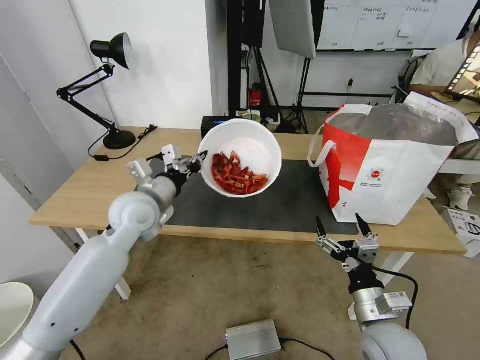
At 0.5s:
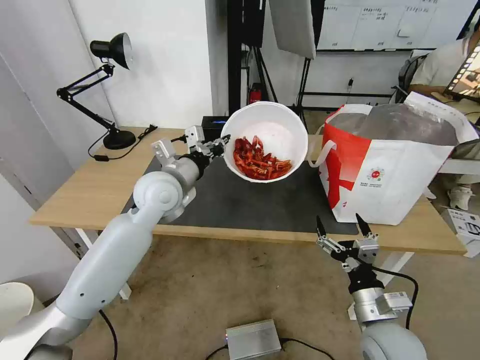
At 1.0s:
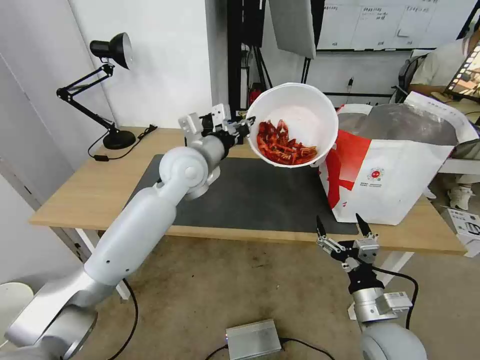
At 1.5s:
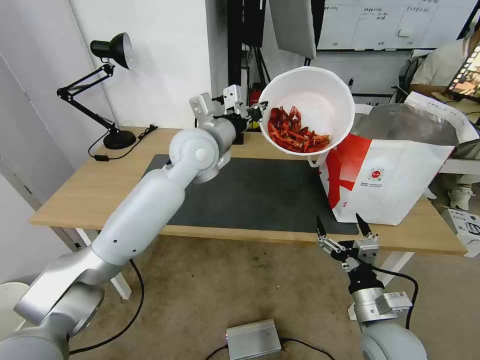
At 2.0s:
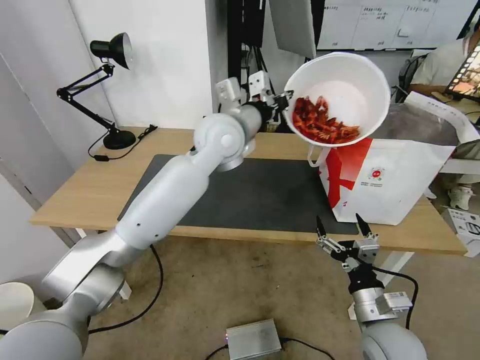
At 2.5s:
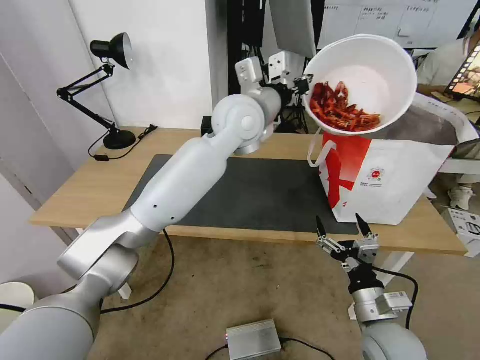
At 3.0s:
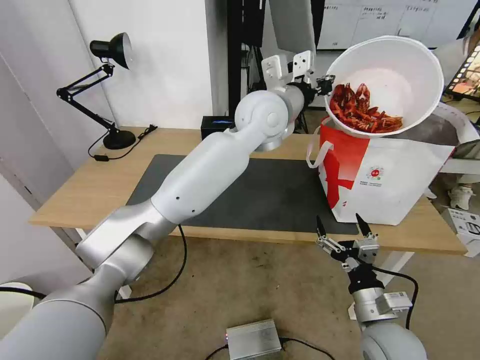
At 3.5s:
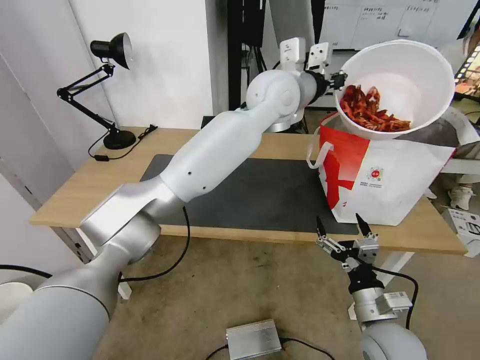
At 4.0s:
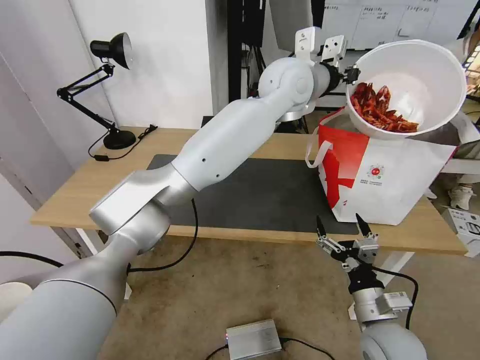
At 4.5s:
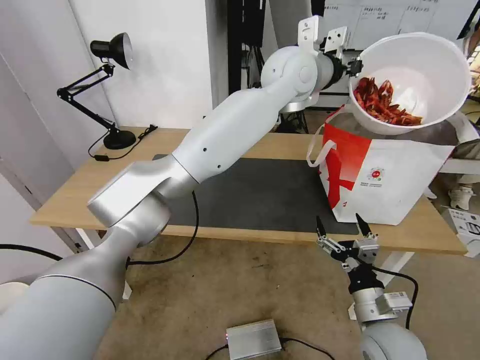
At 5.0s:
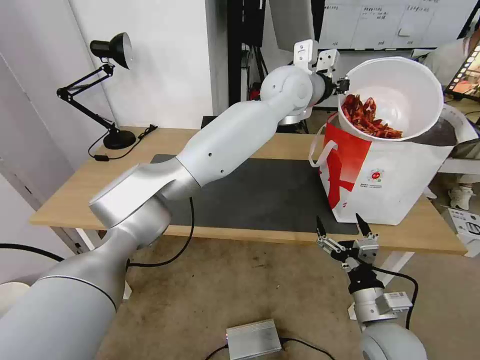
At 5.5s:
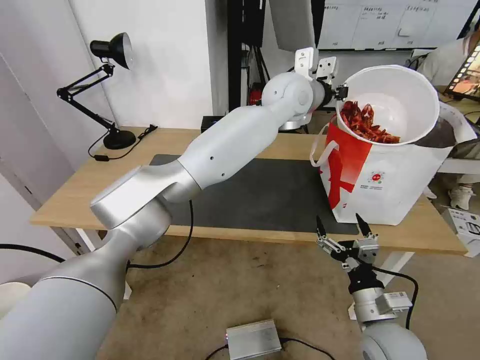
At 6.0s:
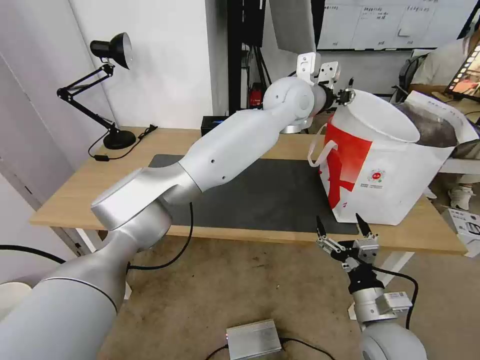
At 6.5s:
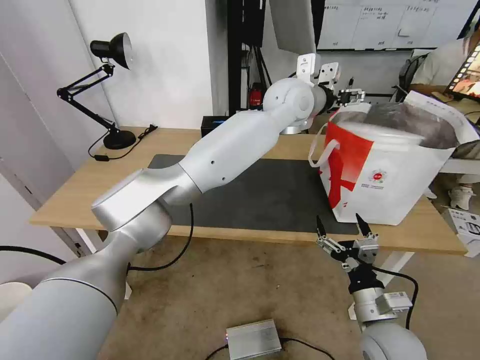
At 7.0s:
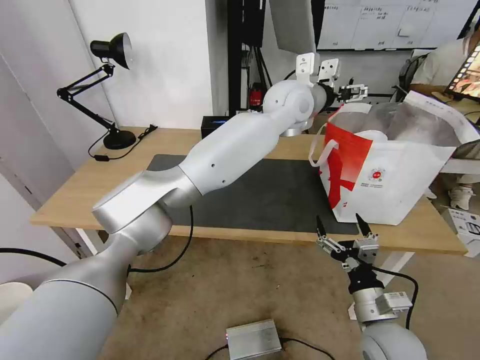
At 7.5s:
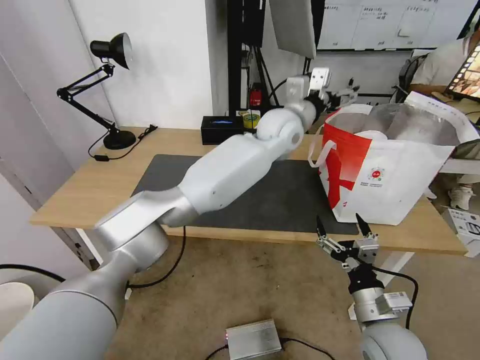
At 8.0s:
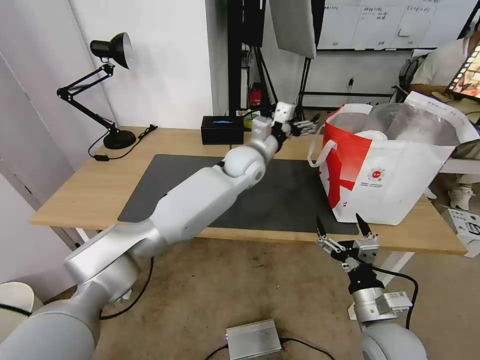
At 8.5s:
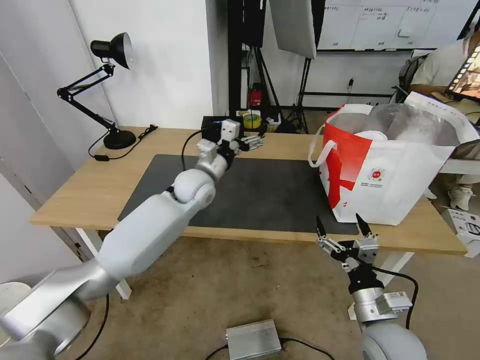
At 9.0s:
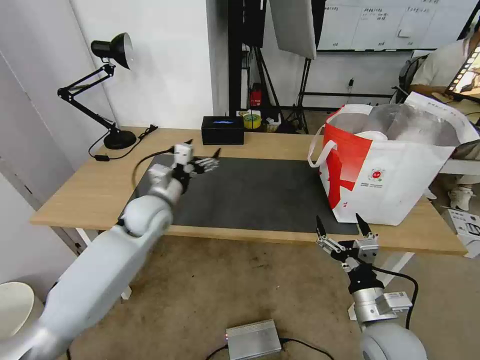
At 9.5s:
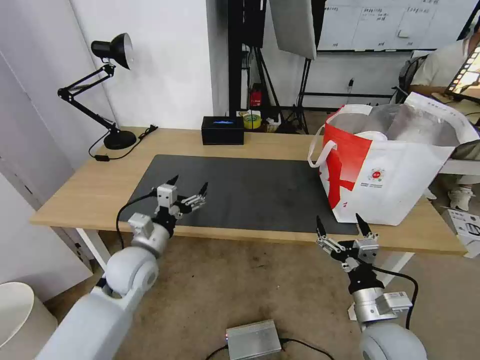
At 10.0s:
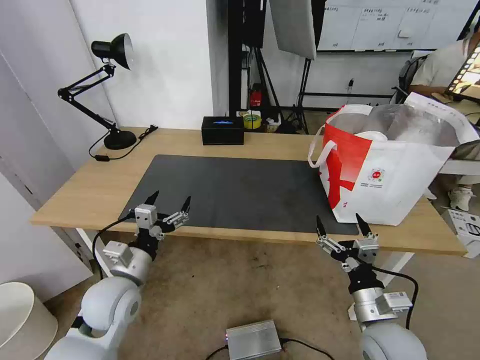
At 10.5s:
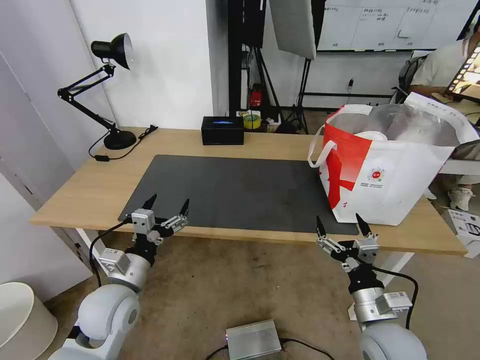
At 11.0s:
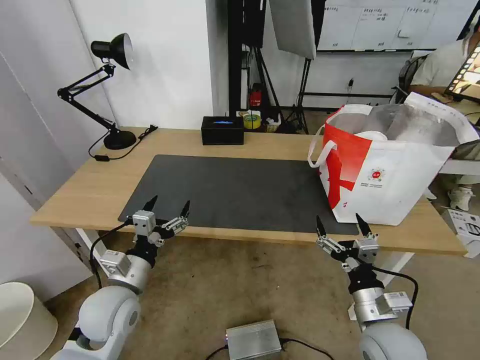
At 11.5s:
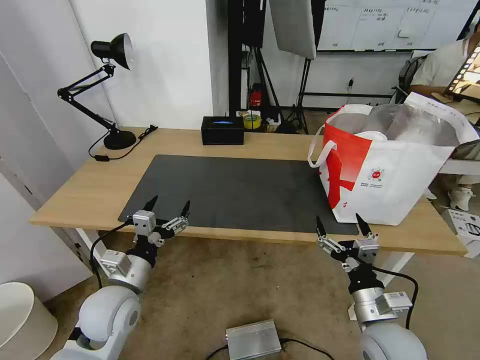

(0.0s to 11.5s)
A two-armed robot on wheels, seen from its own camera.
Task of the whole recording: Pick up the trash from the table and place it into the takeout bag.
0.0s - 2.0s: The left gripper moves to the right, upward and forward, approximately 25 cm.
2.0s - 4.0s: The left gripper heads to the right, upward and forward, covering about 15 cm.
4.0s - 6.0s: The left gripper opens.
6.0s - 7.5s: The left gripper heads downward, covering about 5 cm, and opens up.
7.5s - 9.5s: The left gripper shifts roughly 40 cm to the left, backward and downward.
9.5s - 11.5s: The left gripper is displaced backward by about 10 cm.

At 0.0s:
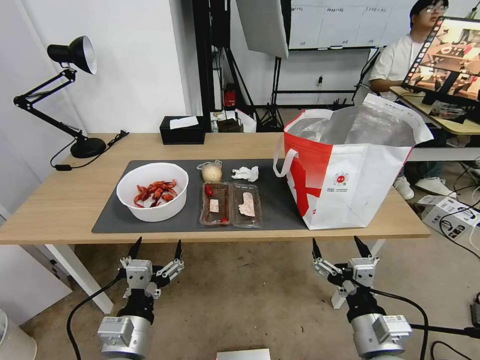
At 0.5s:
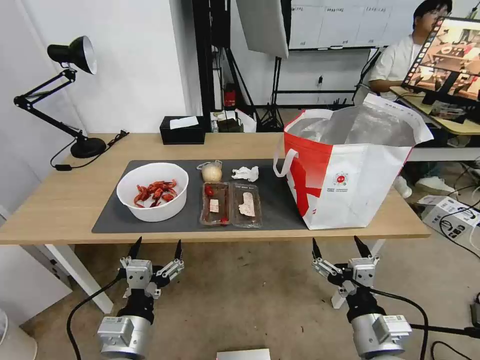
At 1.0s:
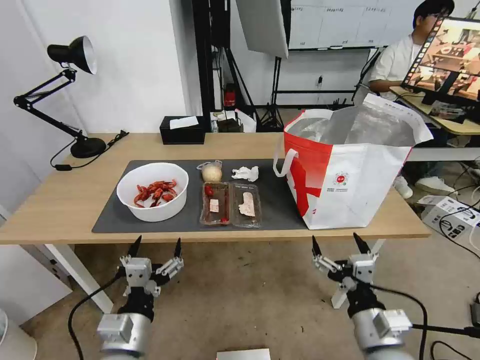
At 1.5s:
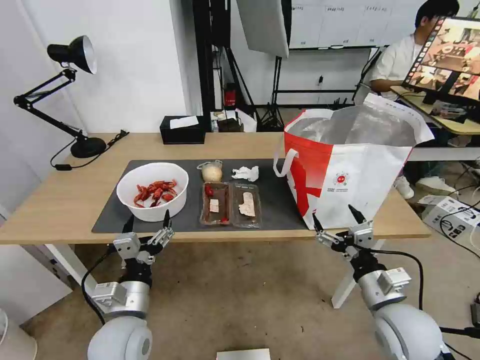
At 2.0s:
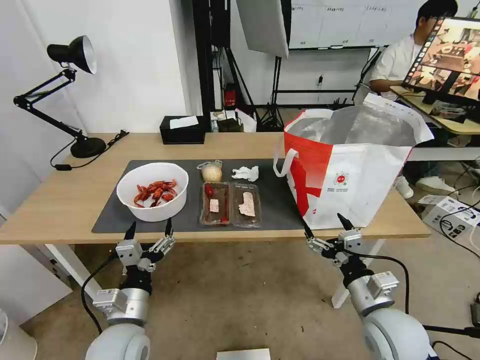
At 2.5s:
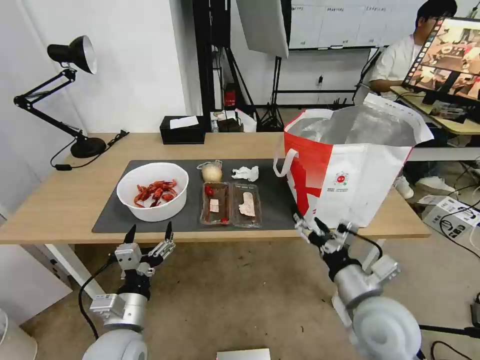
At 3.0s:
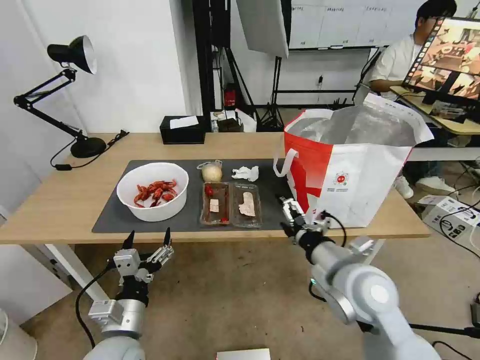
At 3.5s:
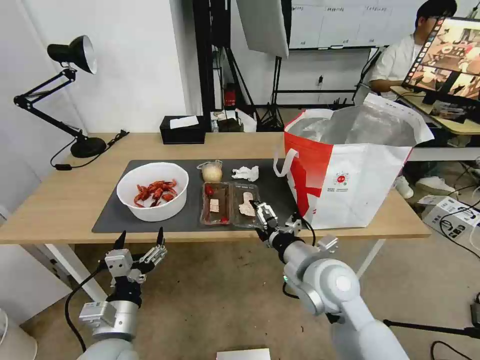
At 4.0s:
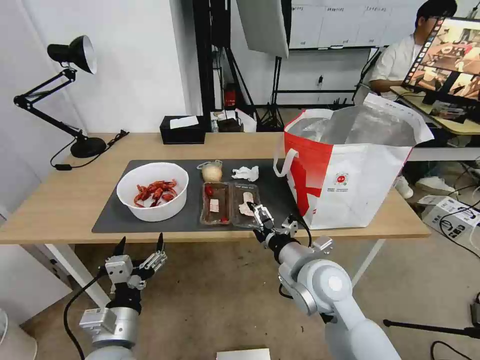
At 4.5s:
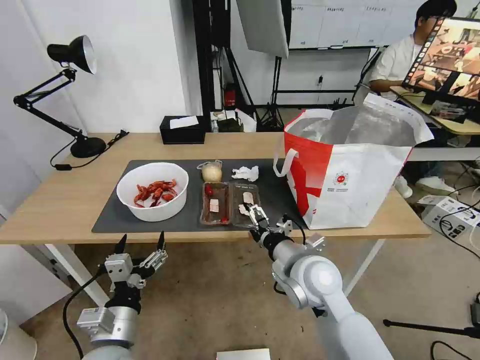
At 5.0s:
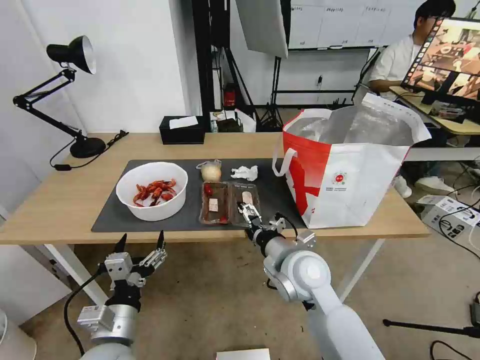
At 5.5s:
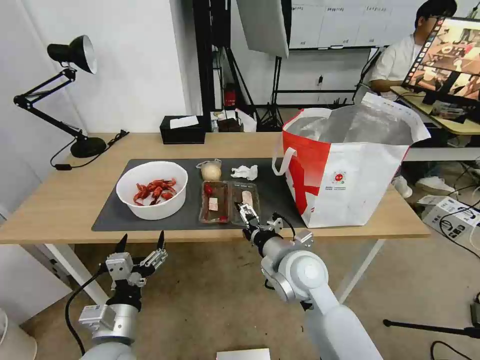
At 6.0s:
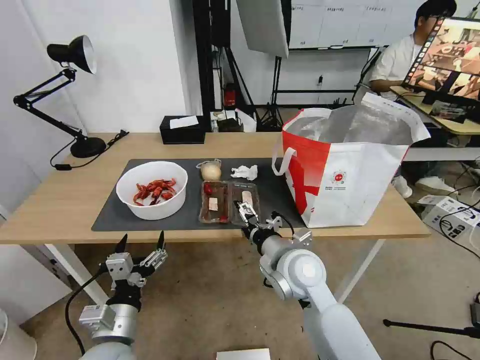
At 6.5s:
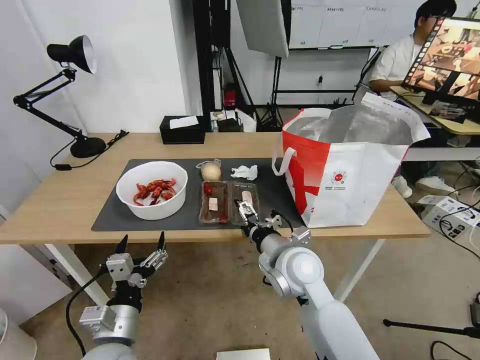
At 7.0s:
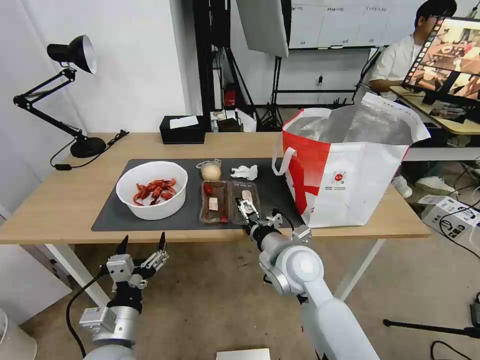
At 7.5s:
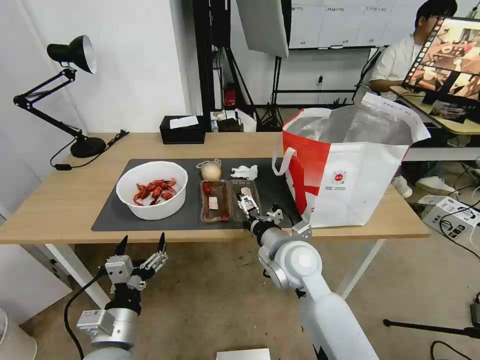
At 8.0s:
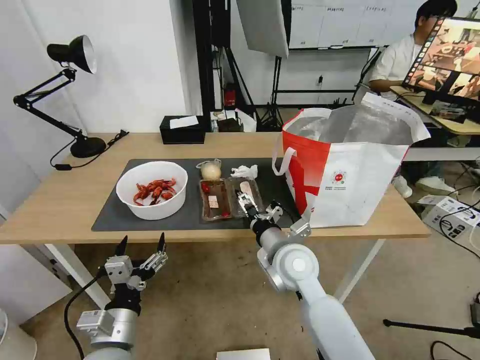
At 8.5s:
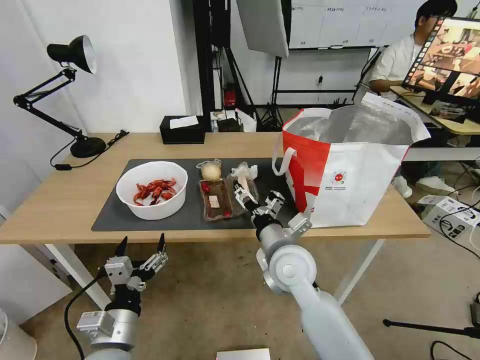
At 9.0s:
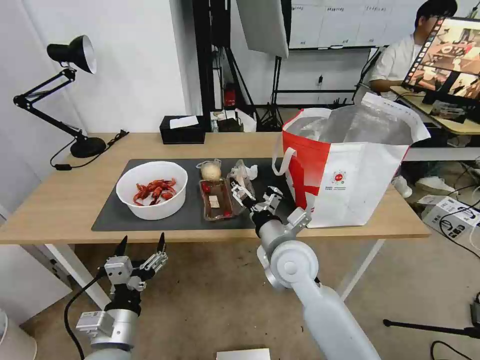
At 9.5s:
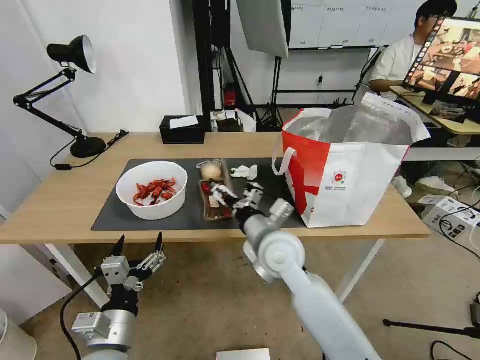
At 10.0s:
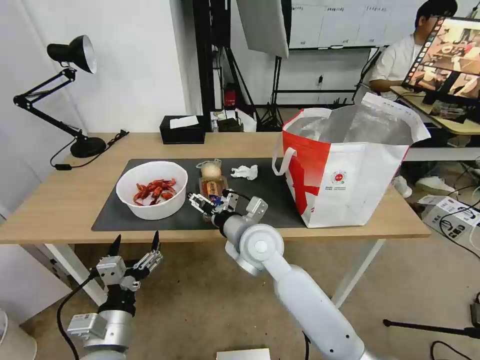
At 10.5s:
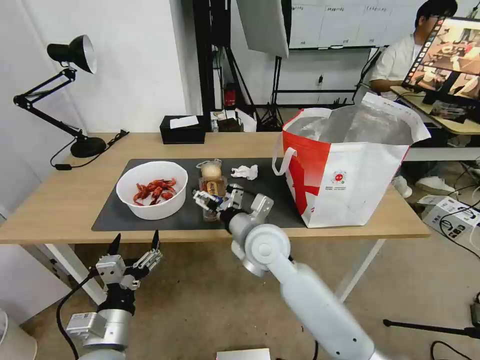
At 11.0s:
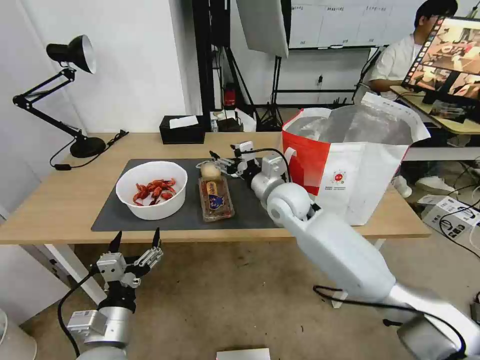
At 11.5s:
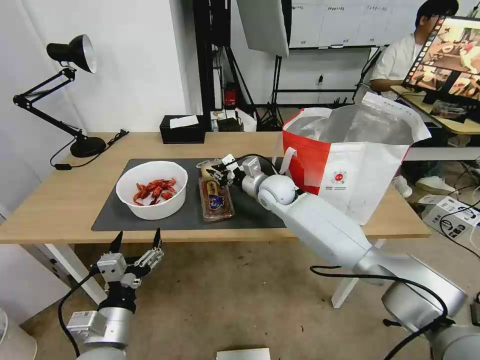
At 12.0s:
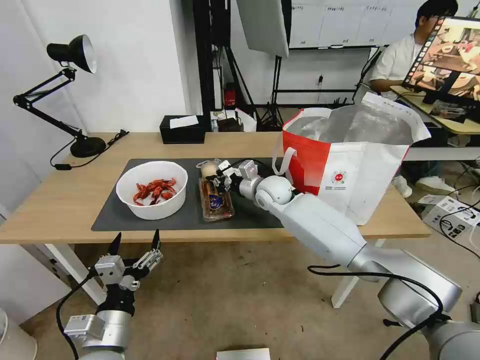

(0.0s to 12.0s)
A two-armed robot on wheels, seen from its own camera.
Task of the whole recording: Pick up the trash from the table and place it into the takeout bag.
2.0s - 4.0s: The right gripper heads to the left, forward and upward, covering some 15 cm.
4.0s - 6.0s: The grippers stay close to where they were, moving slightly.
6.0s - 8.0s: The grippers stay close to where they were, moving slightly.
8.0s - 10.0s: The right gripper heads to the left, covering about 5 cm.
10.0s - 12.0s: The right gripper heads forward, covering about 20 cm, and closes up.

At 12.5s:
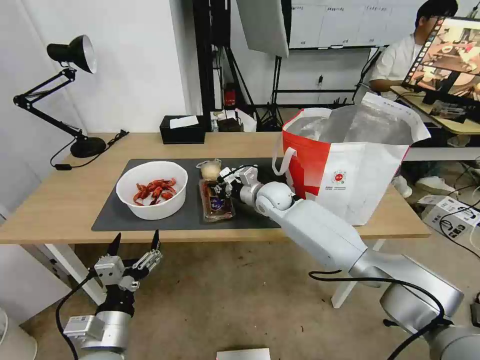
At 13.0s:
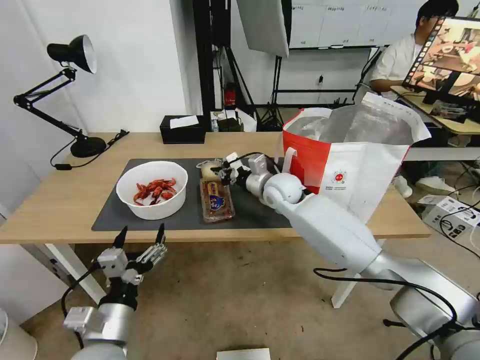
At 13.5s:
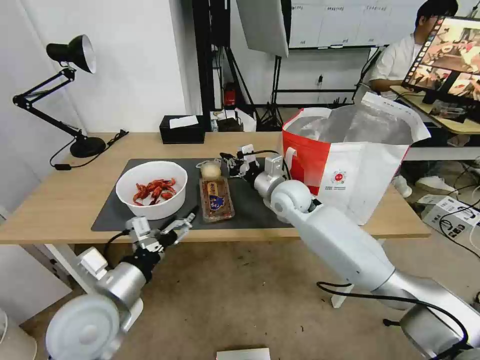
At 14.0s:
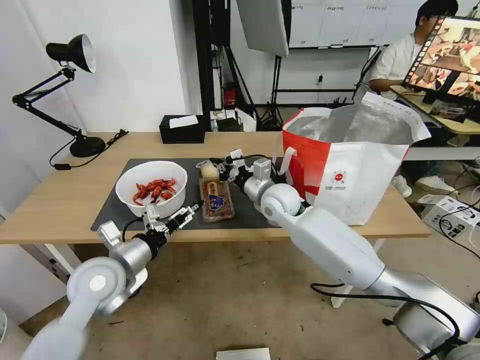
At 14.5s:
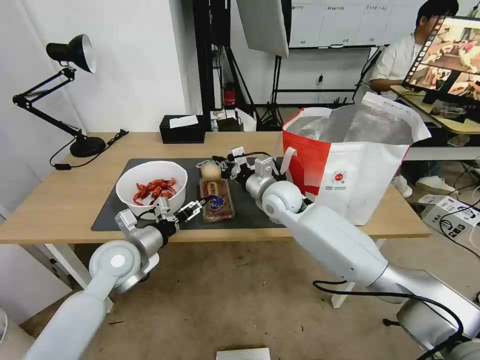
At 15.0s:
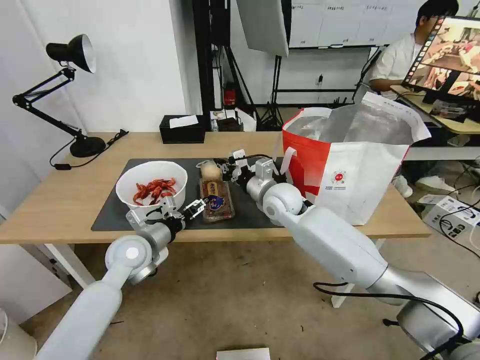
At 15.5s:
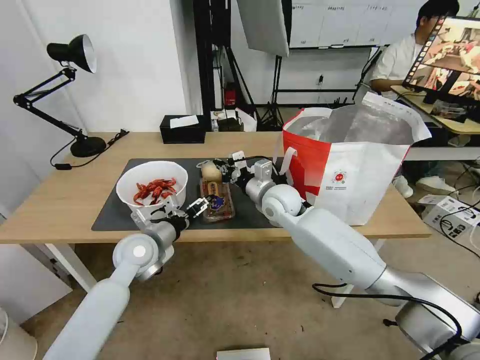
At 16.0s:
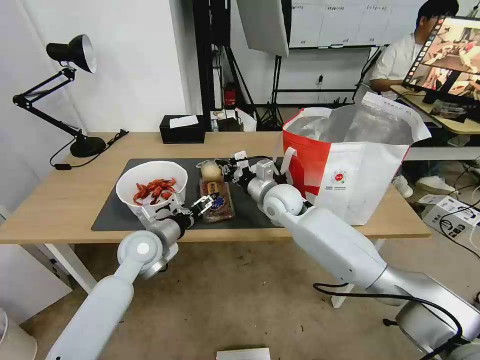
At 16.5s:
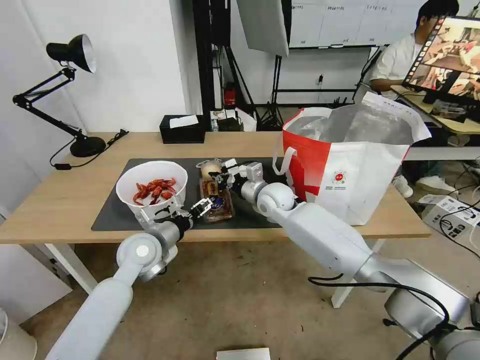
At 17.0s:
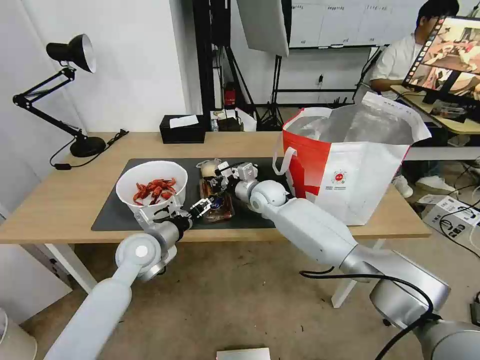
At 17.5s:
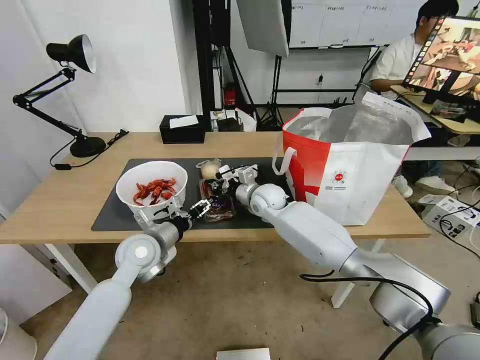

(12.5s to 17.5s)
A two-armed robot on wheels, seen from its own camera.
Task of the whole recording: Pick up the trash from the table and place it into the takeout bag.
12.5s - 15.0s: The right gripper moves roughly 5 cm; the left gripper moves forward, approximately 20 cm.
15.0s - 17.5s: The right gripper goes about 5 cm forward and downward.
